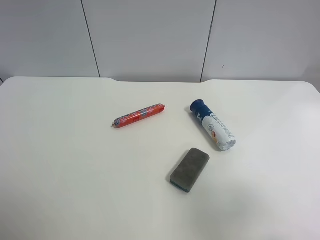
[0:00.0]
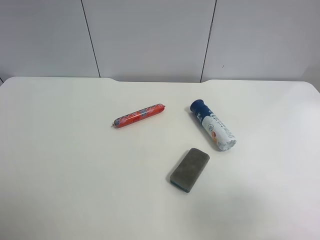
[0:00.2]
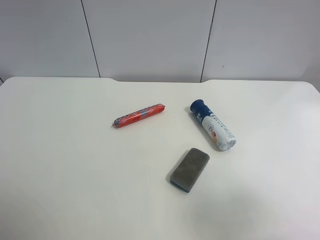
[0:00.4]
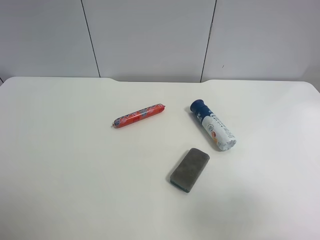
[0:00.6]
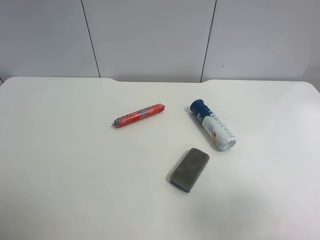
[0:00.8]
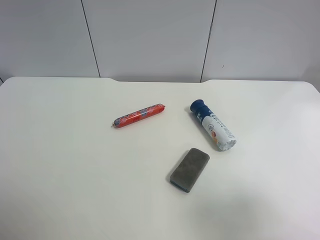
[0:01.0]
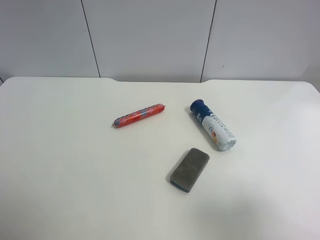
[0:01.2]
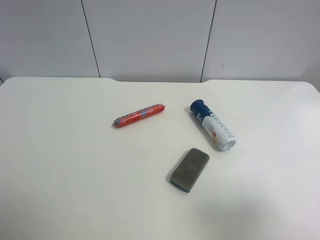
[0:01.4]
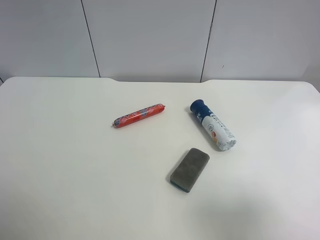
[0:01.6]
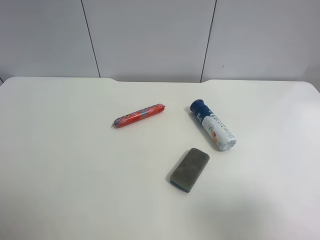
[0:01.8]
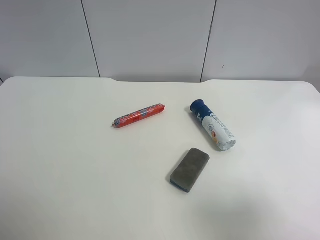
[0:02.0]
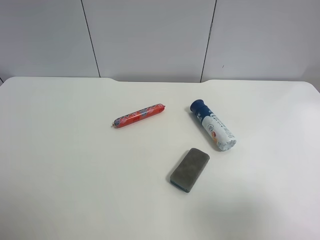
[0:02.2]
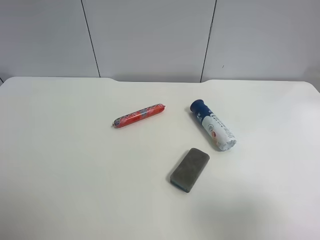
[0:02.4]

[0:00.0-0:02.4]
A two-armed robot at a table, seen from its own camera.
Task of the whole recording: use the left gripper to pick up the item and transfer it from the left gripper to the right gripper.
0:01.2 to 0:02.4: Both grippers stay put.

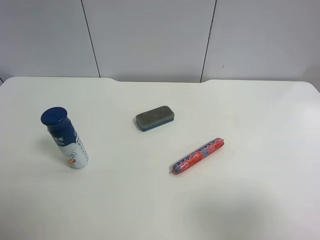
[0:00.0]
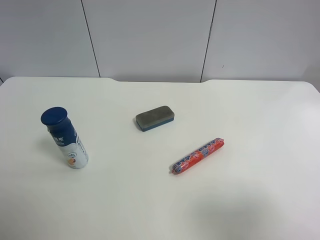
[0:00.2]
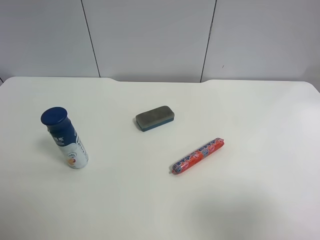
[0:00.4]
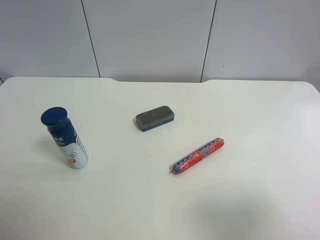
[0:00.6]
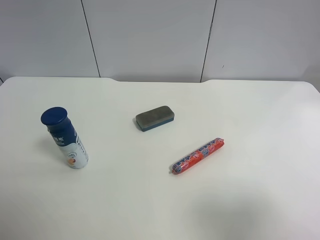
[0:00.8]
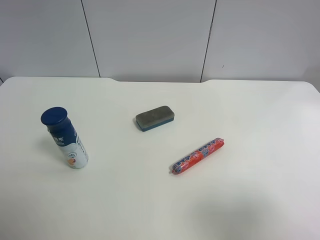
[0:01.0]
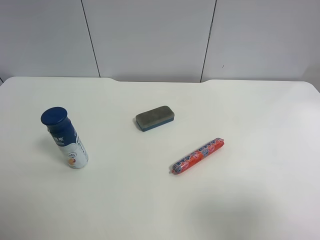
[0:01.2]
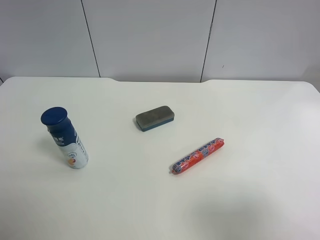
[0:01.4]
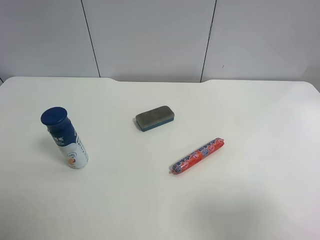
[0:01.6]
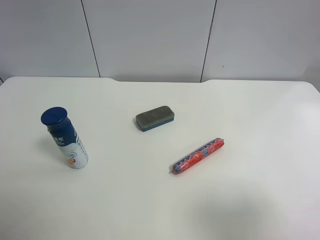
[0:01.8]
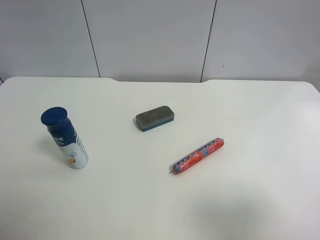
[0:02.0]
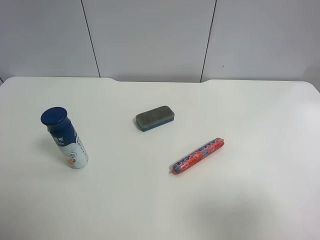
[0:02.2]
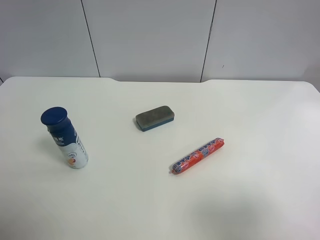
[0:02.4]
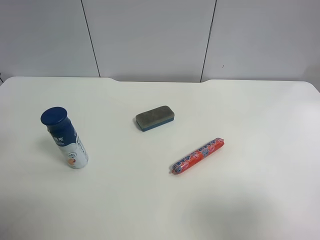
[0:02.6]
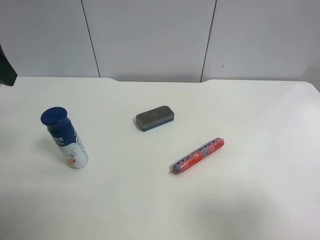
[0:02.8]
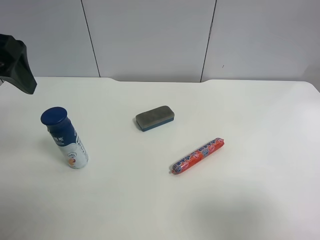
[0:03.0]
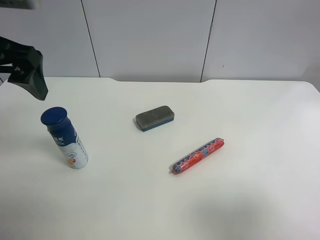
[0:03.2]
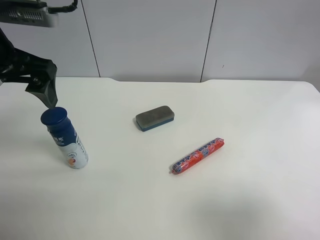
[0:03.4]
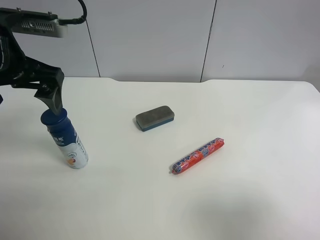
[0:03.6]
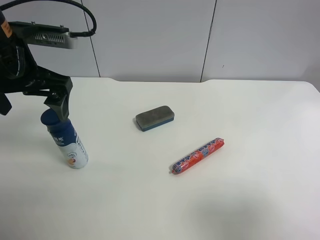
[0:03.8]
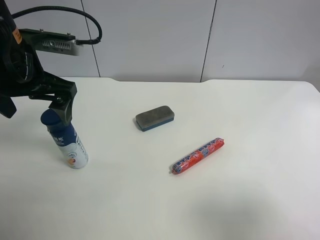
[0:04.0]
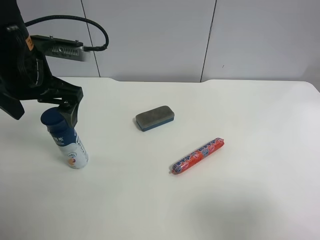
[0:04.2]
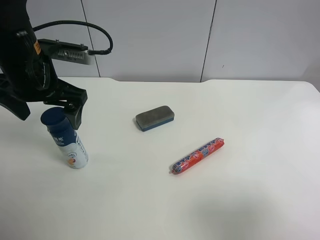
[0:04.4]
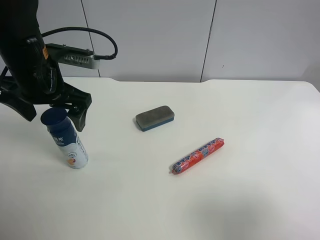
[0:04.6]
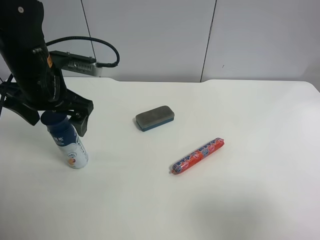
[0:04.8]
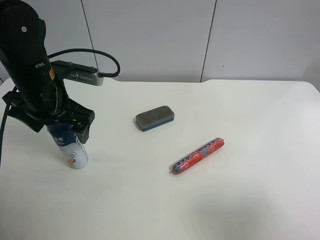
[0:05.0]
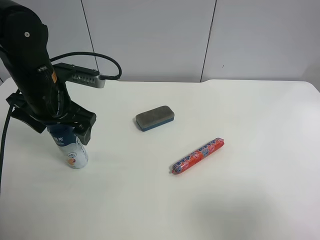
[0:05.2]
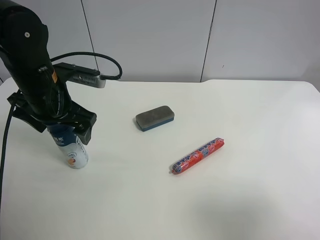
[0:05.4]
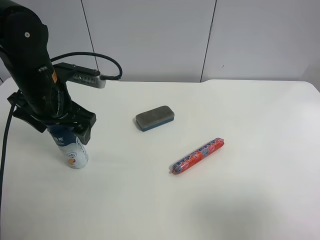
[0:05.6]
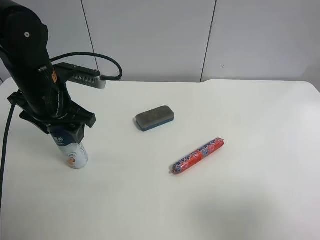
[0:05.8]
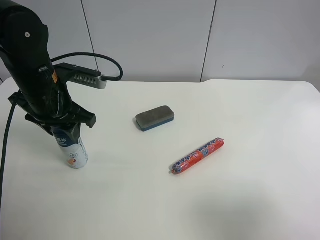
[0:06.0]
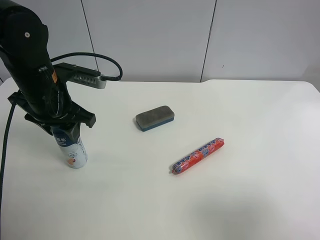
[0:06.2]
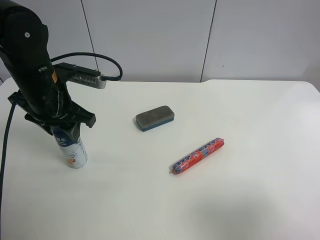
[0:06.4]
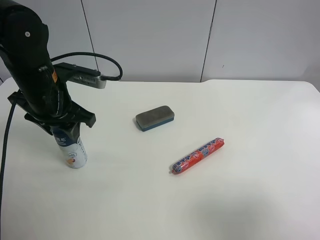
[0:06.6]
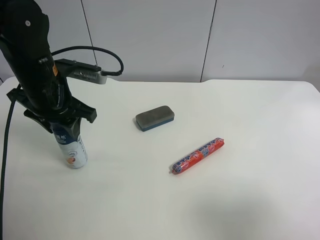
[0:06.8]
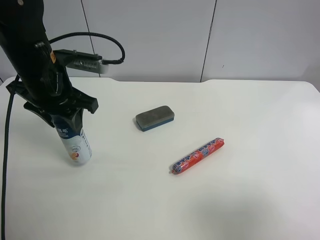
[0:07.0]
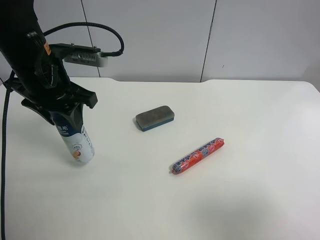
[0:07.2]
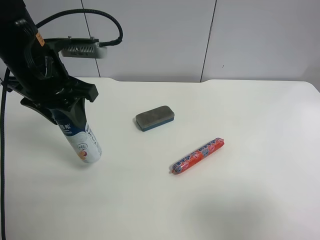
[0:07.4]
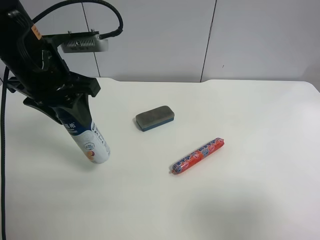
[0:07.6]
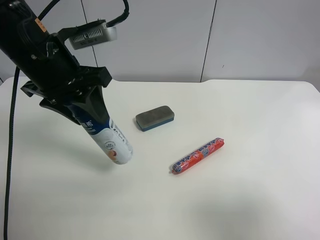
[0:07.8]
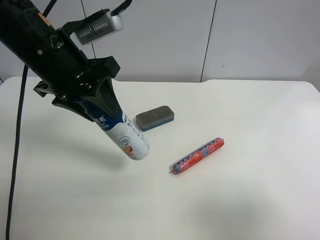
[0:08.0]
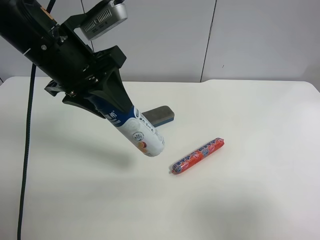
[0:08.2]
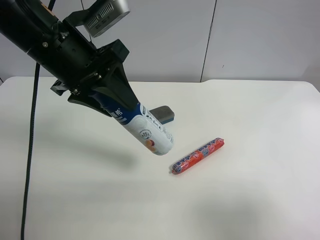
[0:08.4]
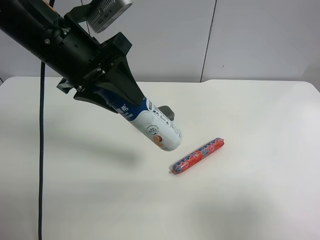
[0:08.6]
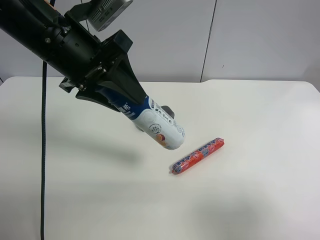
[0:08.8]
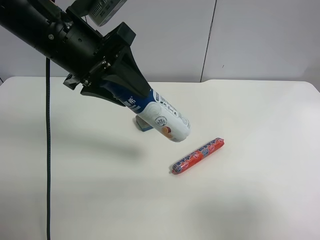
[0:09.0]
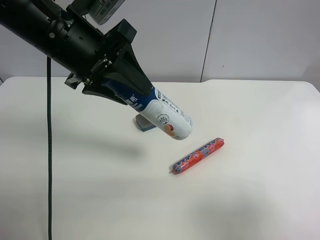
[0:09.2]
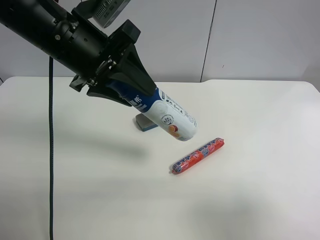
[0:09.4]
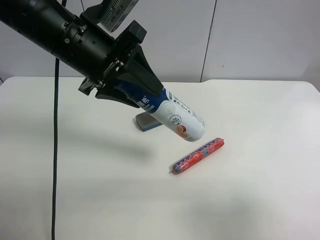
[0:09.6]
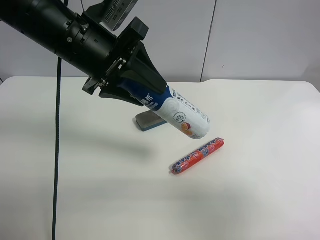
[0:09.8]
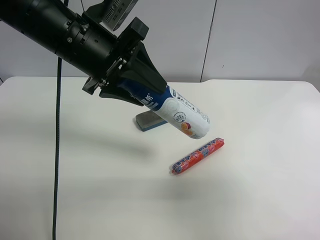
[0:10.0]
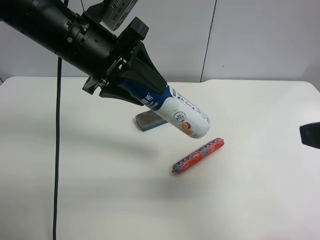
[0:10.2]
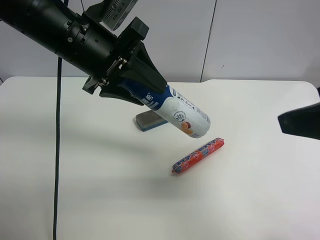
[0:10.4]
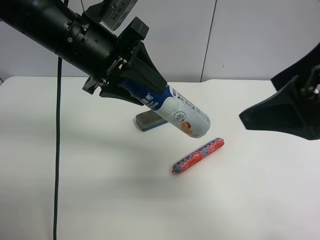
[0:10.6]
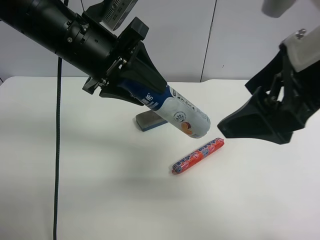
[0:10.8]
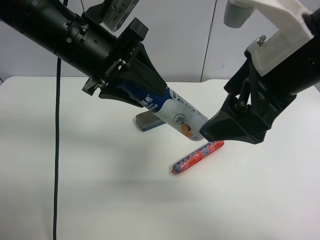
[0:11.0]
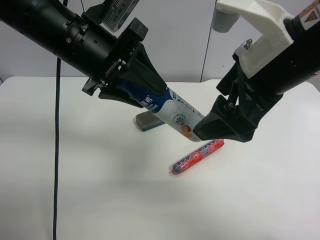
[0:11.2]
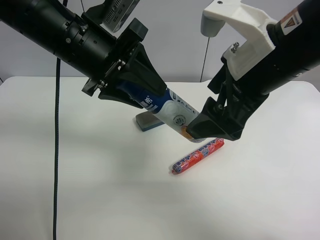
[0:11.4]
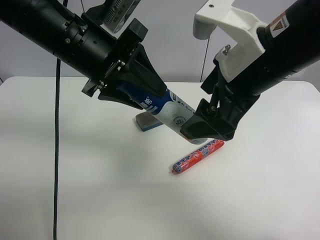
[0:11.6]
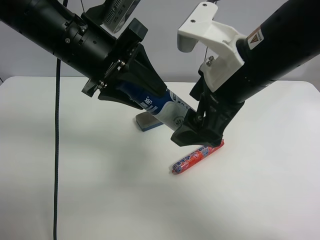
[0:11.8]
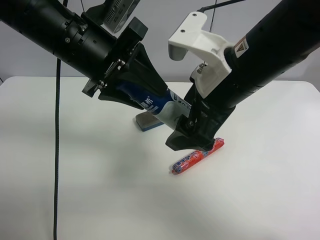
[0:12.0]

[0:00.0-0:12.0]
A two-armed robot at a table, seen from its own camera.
Task of the whole recording: use the left gripper to pick up the item and transfer it from the left gripper to the right gripper.
0:01.6 to 0:03.0: The left gripper shifts approximately 20 cm forward and to the right.
0:03.0 to 0:04.4: The left gripper heads downward and forward, covering some 10 cm.
0:04.4 to 0:06.0: The left gripper closes.
0:06.0 to 0:07.6: The left gripper goes about 5 cm upward.
0:09.0 to 0:10.4: The right gripper shifts roughly 15 cm forward, upward and to the left.
0:10.4 to 0:12.0: The right gripper travels to the left, forward and downward by some 15 cm.

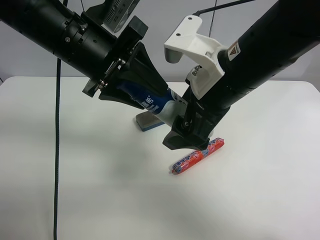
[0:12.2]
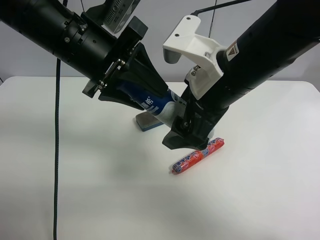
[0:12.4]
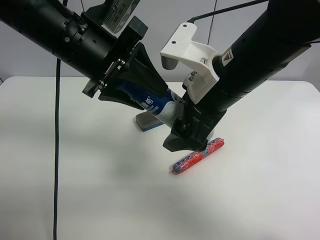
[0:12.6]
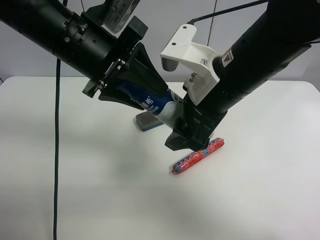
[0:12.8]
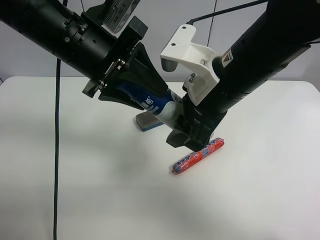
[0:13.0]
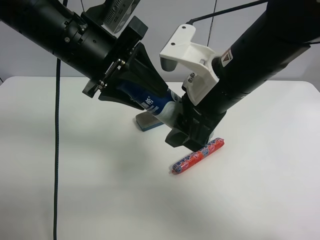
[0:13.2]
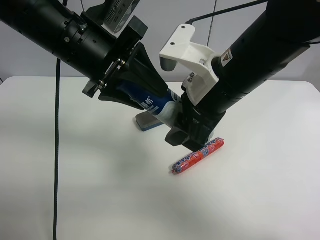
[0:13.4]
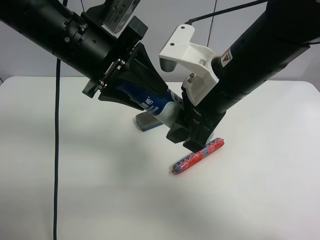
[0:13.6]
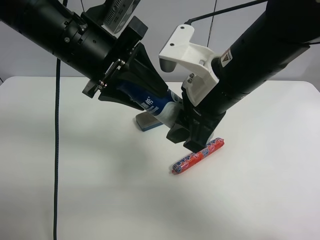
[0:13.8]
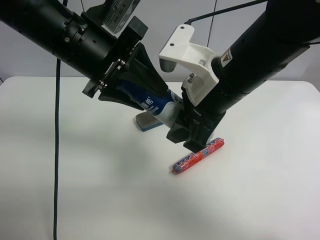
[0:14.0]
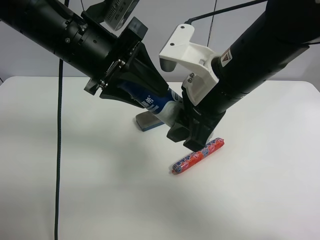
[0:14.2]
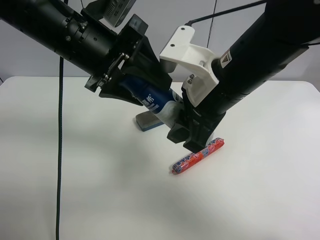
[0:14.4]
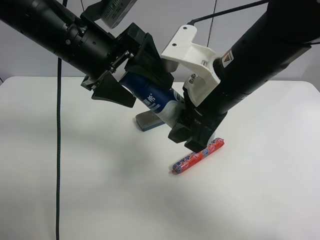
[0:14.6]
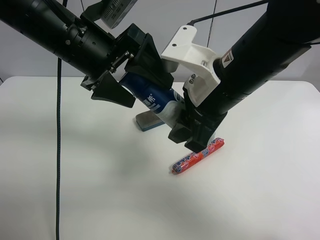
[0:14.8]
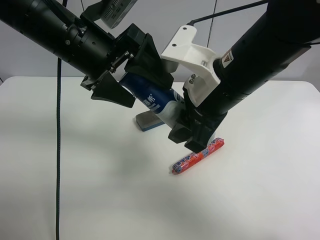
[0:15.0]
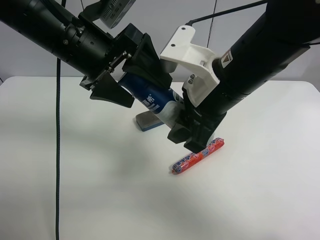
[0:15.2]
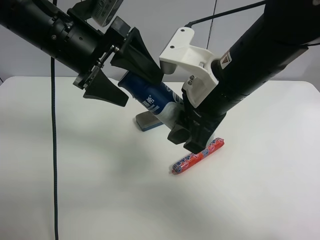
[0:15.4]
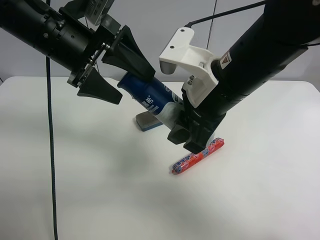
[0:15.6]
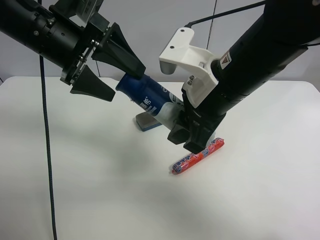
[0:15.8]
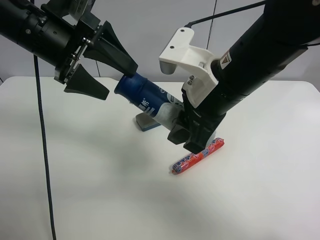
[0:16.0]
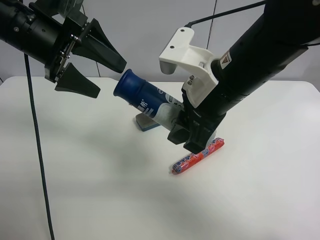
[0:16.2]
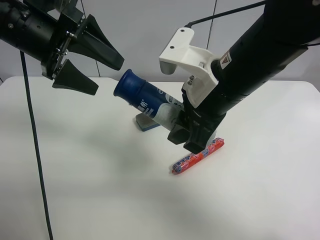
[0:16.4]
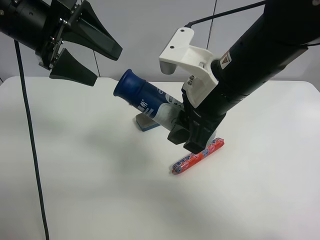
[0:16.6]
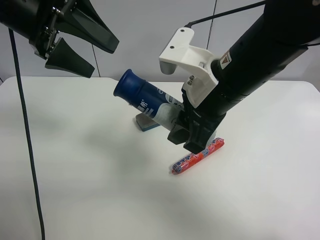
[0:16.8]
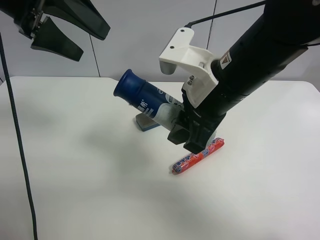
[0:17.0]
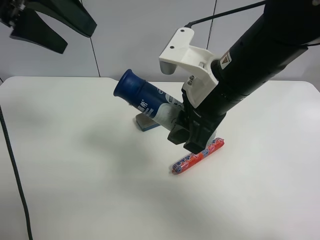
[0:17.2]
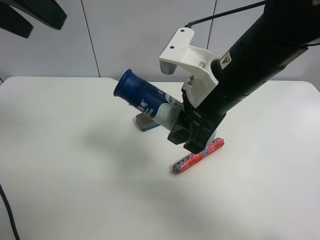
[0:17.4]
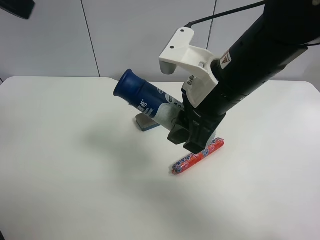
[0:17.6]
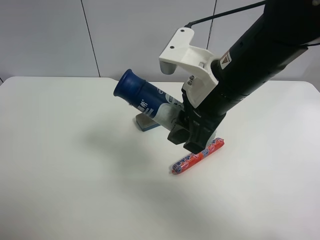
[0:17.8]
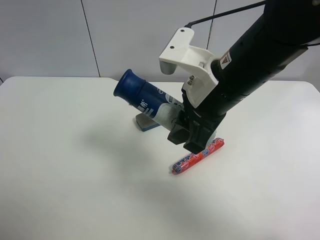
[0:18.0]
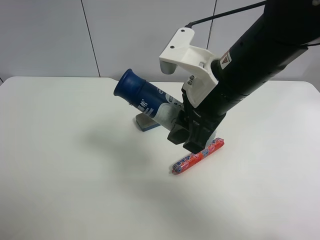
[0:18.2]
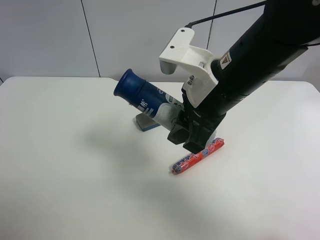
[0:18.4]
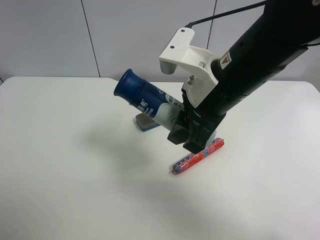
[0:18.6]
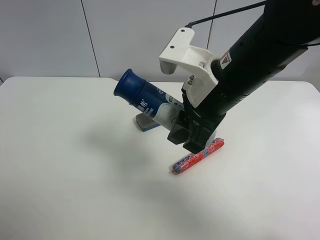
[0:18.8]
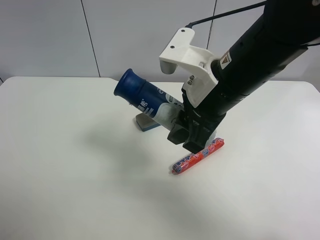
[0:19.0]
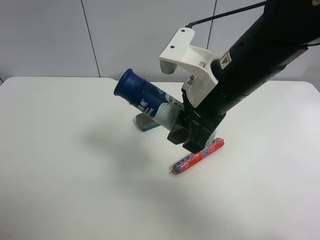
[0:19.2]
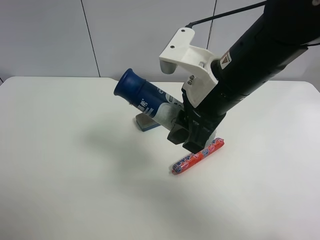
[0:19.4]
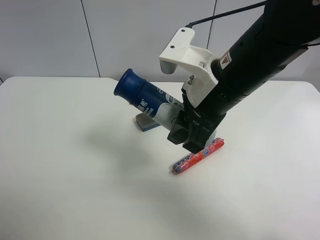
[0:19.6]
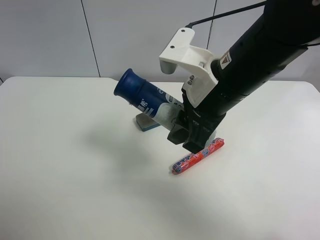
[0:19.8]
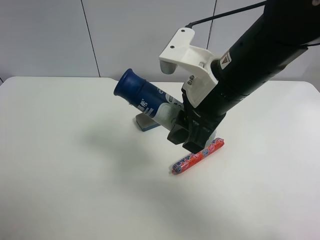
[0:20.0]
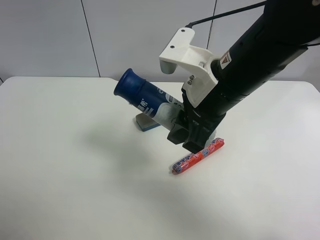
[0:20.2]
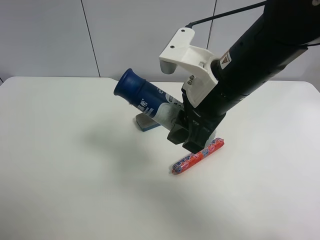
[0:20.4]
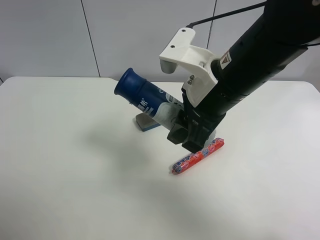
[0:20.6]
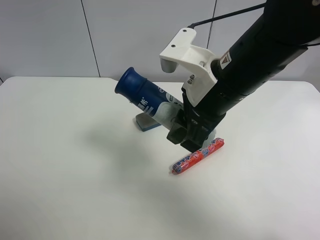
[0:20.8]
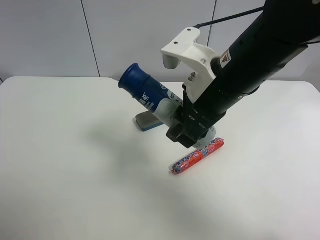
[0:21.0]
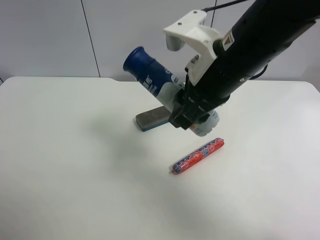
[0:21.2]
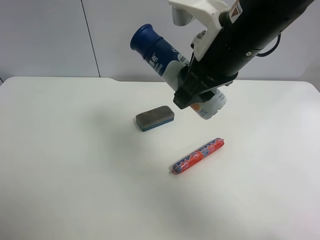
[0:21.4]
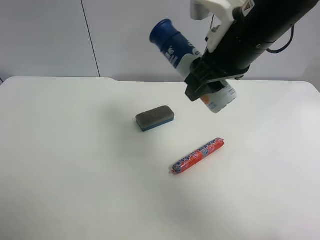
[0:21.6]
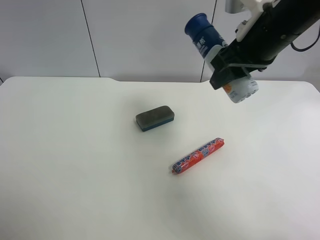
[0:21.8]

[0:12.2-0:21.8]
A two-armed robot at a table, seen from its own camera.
Task of the whole recording: use the left gripper to pick up the item and transfer it from the left gripper to the right gripper.
0:12.2 to 0:13.8: The right gripper closes up.
0:13.8 to 0:15.4: The left gripper opens its fingers.
0:15.4 to 0:17.0: The left gripper goes roughly 10 cm upward and to the left.
0:17.0 to 0:18.6: The left gripper goes some 30 cm backward.
0:20.2 to 0:21.8: The right gripper is displaced to the right and forward by roughly 10 cm.
